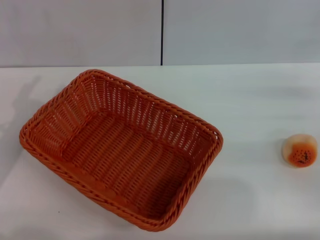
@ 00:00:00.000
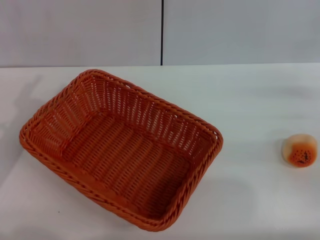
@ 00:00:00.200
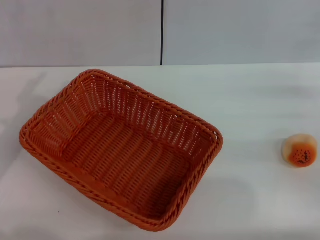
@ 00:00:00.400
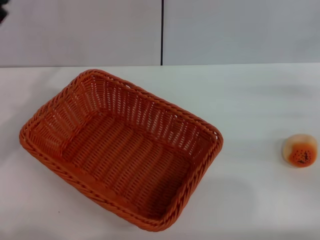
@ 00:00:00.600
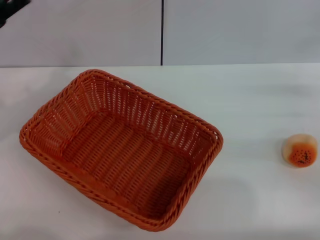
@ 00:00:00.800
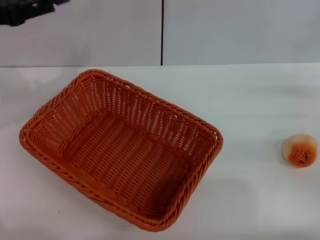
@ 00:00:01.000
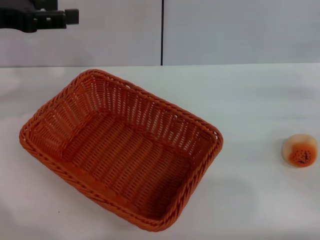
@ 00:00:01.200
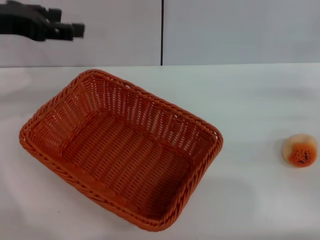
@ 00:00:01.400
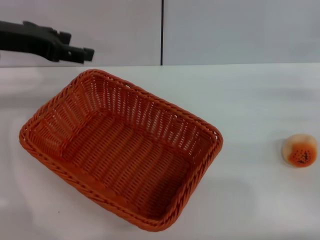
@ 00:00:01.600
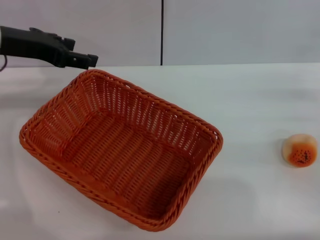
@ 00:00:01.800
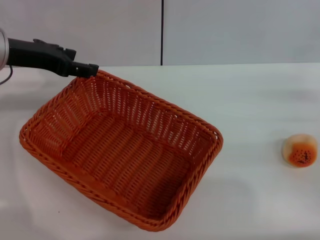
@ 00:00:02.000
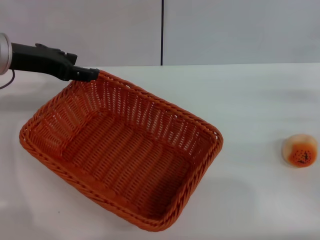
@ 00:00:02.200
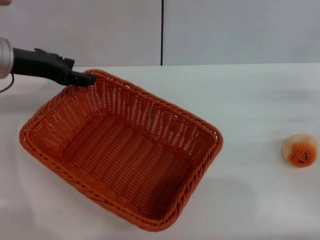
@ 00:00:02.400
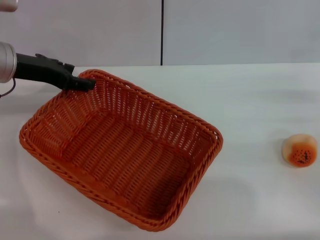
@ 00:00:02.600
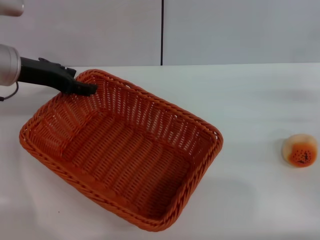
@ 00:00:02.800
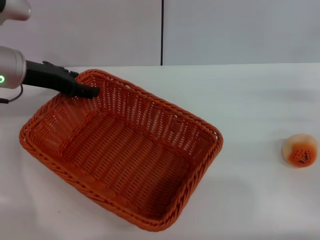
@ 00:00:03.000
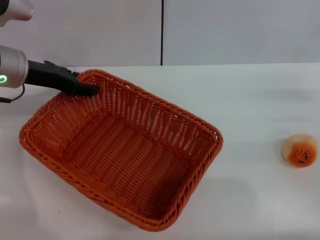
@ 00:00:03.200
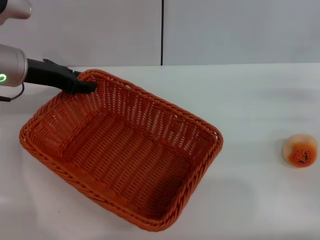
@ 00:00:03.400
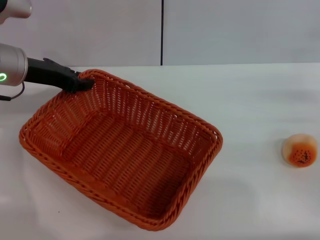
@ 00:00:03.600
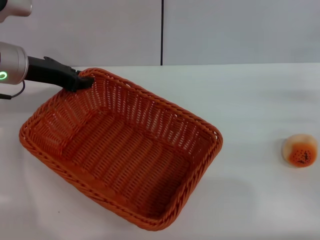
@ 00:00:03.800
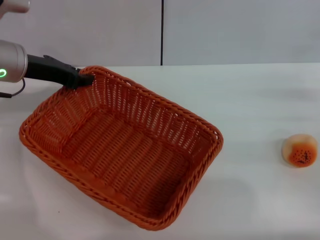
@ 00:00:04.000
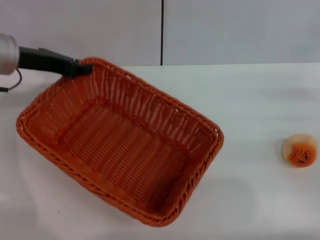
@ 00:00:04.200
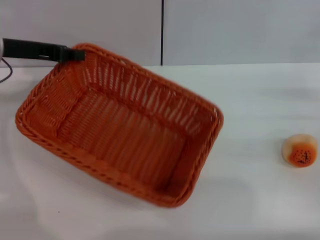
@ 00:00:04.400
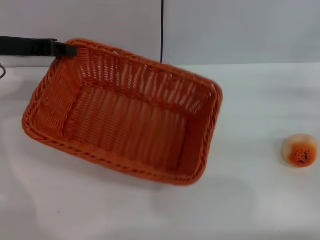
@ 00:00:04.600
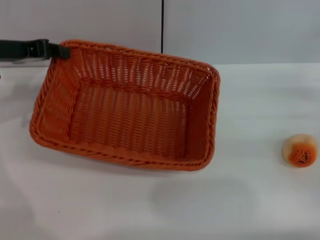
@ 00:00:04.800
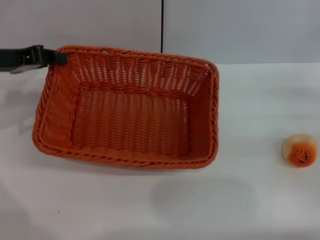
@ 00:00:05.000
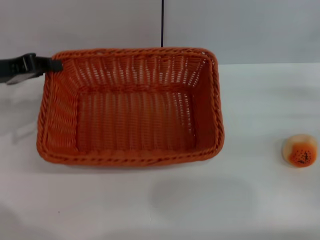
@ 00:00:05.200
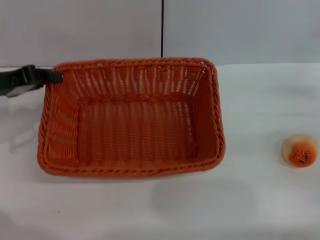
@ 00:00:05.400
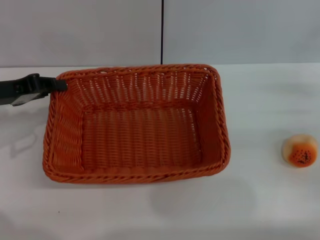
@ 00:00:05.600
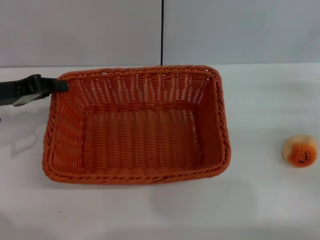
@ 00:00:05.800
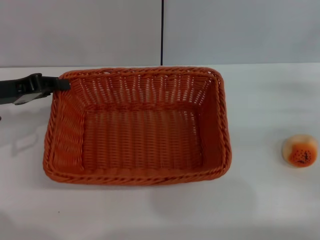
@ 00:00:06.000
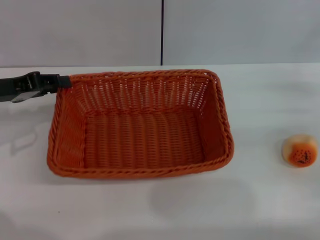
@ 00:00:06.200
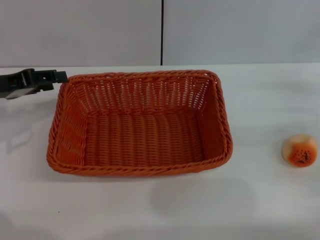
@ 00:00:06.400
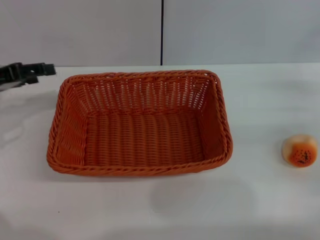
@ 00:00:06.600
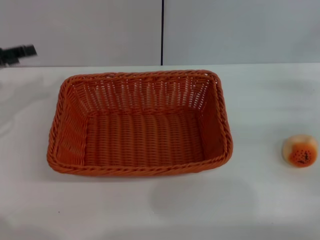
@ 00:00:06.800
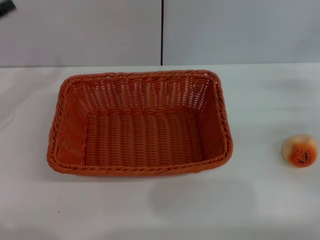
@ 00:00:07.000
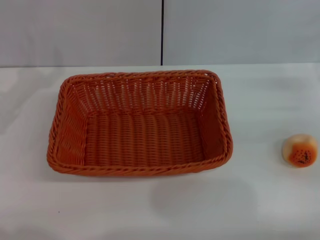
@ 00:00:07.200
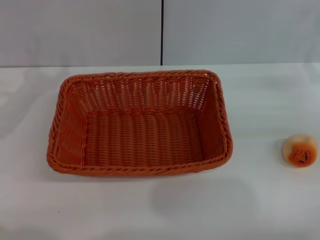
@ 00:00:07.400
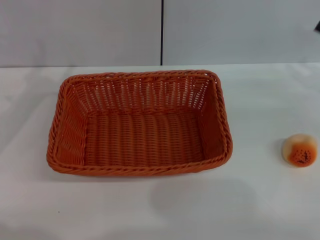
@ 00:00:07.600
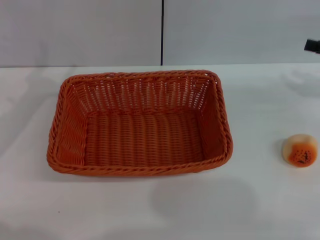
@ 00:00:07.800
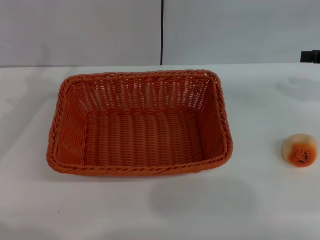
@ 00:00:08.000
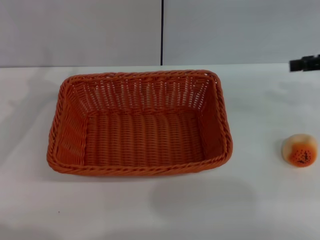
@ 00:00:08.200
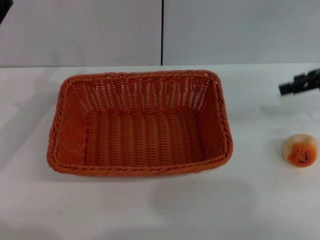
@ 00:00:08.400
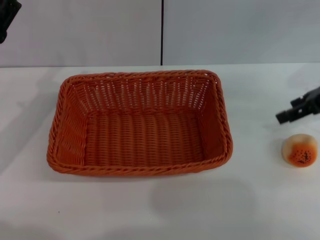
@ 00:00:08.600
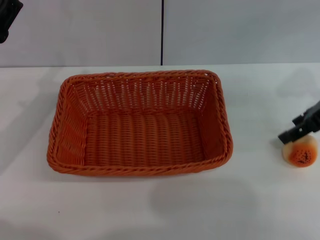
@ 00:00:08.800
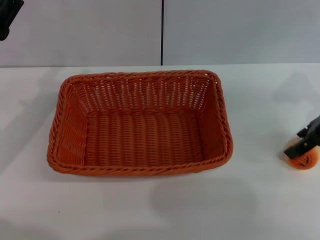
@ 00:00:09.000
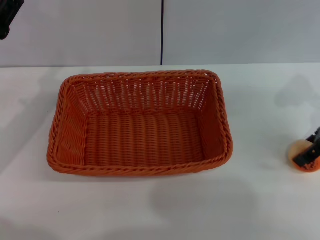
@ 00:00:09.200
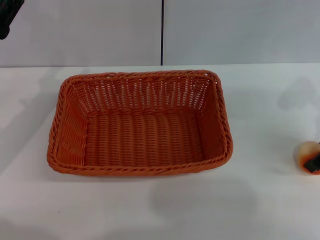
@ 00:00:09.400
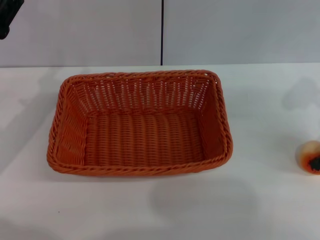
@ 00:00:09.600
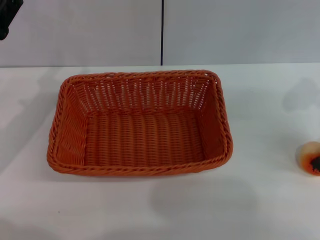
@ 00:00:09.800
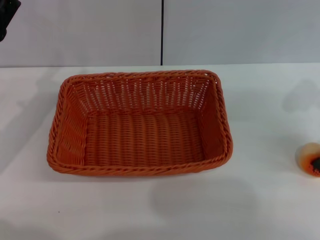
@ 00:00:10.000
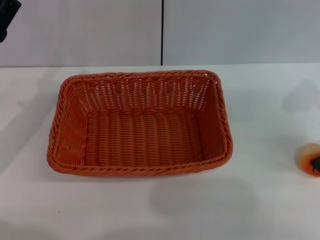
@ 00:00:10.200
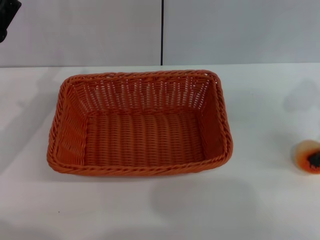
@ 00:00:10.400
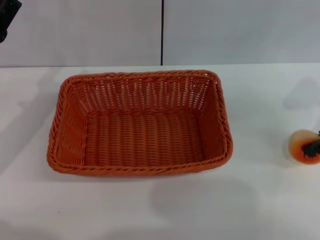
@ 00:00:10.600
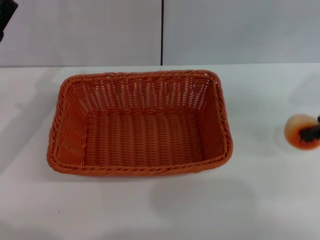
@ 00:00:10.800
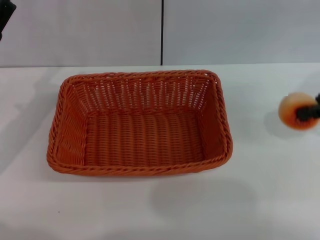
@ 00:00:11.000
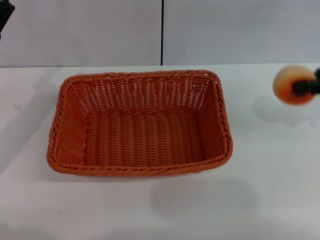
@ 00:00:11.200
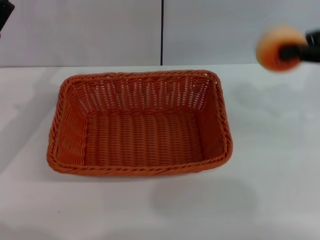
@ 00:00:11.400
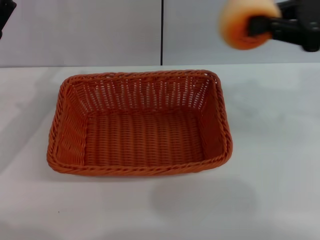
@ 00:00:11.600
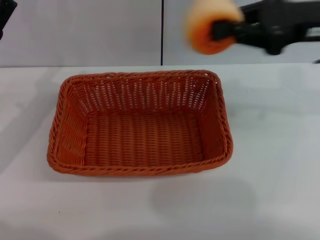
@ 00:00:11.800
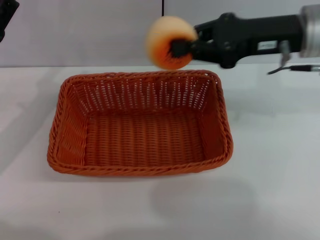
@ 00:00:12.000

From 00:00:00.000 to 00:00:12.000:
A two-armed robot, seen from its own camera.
Step, from 00:00:00.000 to 00:00:06.400: Move the basket to the center of view with the left gripper.
Step, from 00:00:06.600 to 00:00:10.800: Pick up the egg yolk pastry with the right gripper.
From 00:00:00.000 to 00:00:01.600: The left gripper shifts about 20 cm upward and forward.
From 00:00:01.600 to 00:00:03.000: The left gripper moves downward, some 5 cm.
From 00:00:03.000 to 00:00:04.400: The left gripper closes up.
From 00:00:04.400 to 00:00:06.000: The left gripper goes roughly 10 cm backward and downward.
From 00:00:06.000 to 00:00:07.600: The right gripper is displaced upward by approximately 5 cm, while the left gripper opens its fingers.
From 00:00:07.600 to 00:00:09.000: The right gripper moves to the left, about 10 cm.
From 00:00:09.000 to 00:00:10.400: The right gripper closes.
From 00:00:10.400 to 00:00:12.000: The right gripper goes some 10 cm to the left, and closes its fingers.

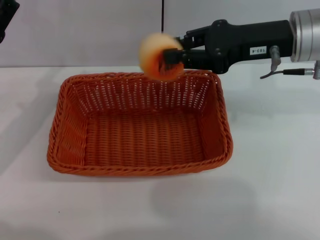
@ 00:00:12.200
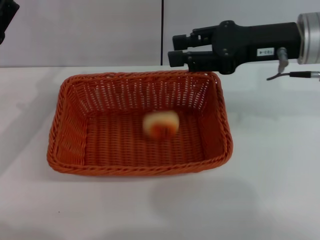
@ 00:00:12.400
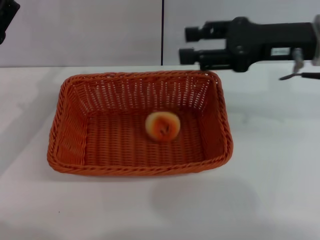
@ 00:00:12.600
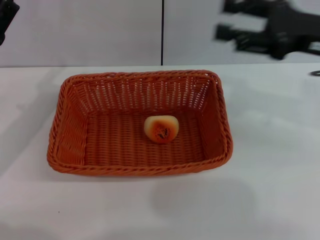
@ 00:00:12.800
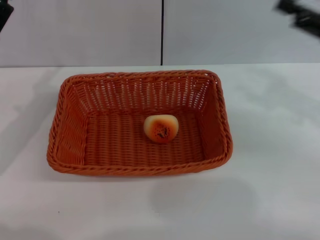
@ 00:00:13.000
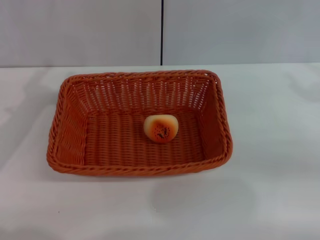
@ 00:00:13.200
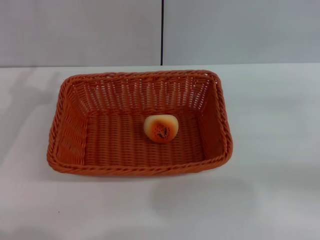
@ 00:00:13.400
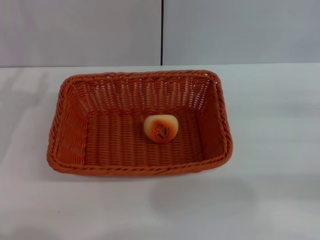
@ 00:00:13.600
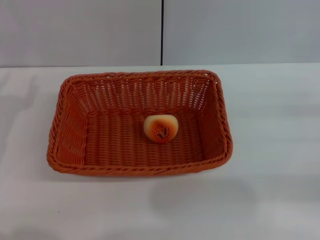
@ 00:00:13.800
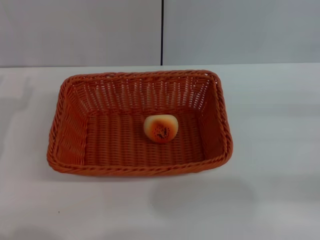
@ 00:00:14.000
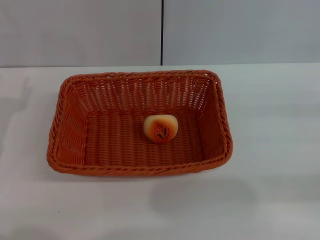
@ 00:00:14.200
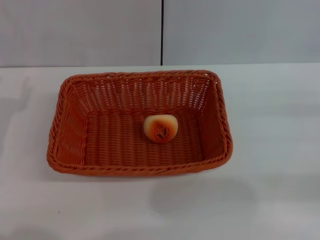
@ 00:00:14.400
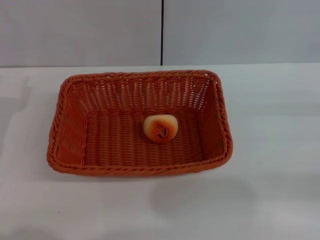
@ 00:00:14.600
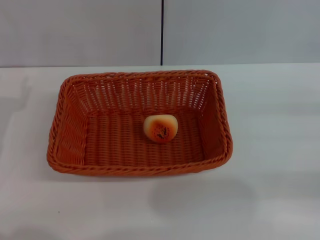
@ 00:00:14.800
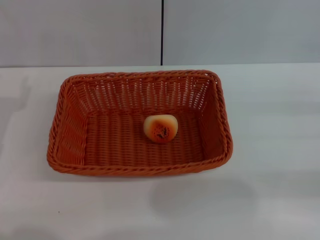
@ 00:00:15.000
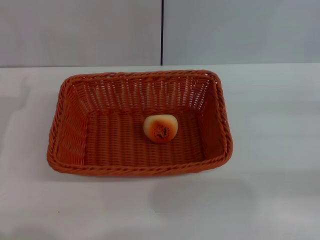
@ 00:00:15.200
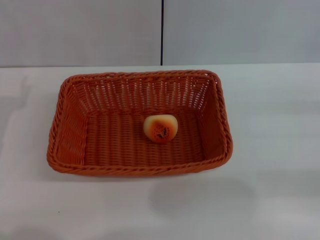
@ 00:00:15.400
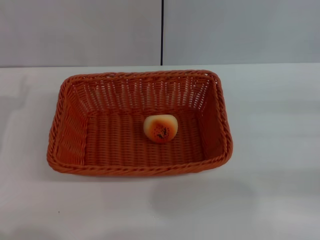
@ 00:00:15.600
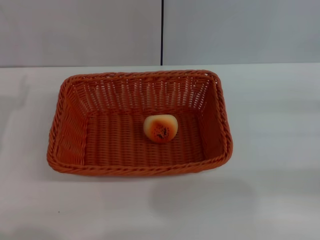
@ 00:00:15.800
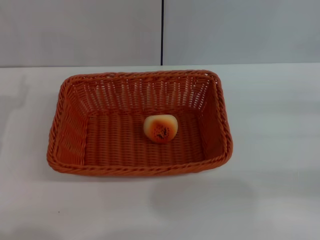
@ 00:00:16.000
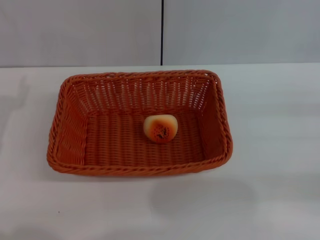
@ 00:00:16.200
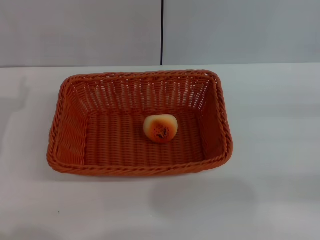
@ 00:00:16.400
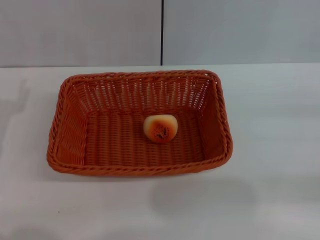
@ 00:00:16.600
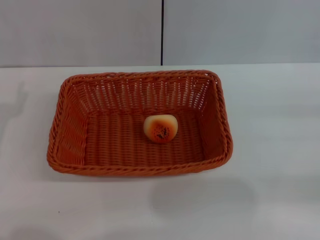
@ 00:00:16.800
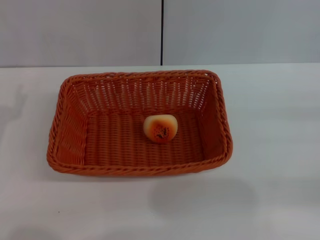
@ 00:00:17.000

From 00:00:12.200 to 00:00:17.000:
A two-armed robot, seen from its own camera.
From 00:00:12.200 to 00:00:13.800: The right gripper moves to the right, backward and downward, roughly 25 cm, and opens its fingers. Meanwhile the left gripper shifts by approximately 5 cm.
From 00:00:13.800 to 00:00:15.400: Both grippers stay put.
